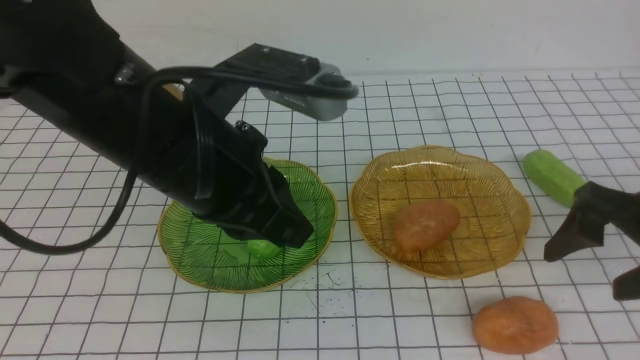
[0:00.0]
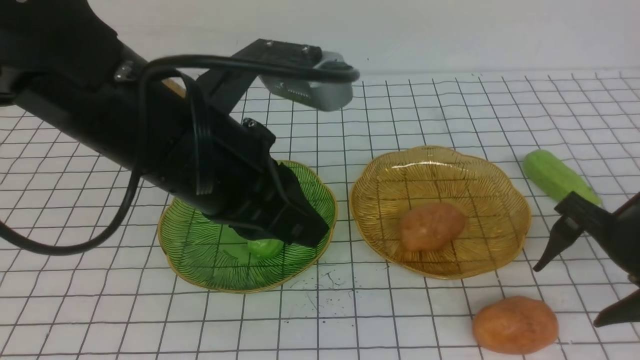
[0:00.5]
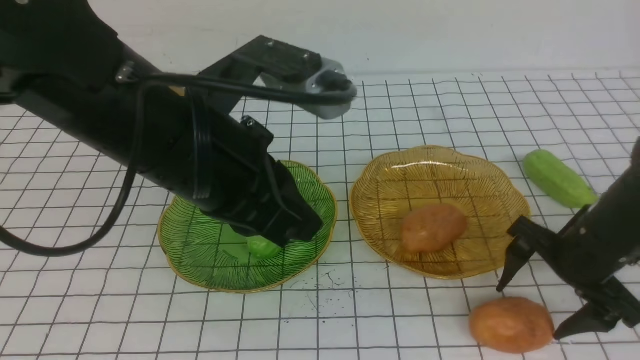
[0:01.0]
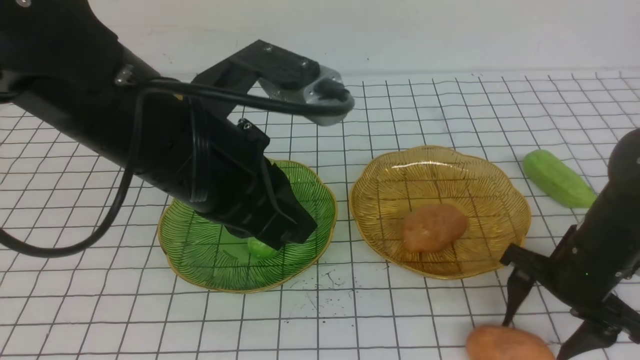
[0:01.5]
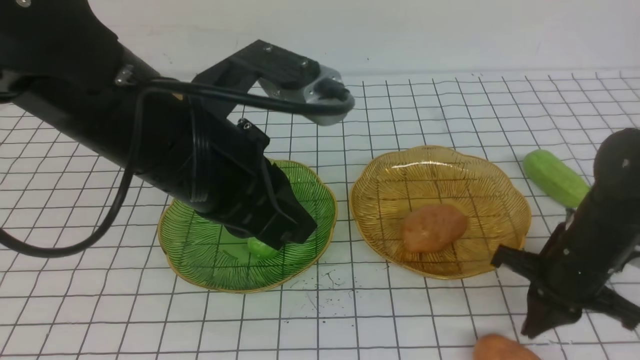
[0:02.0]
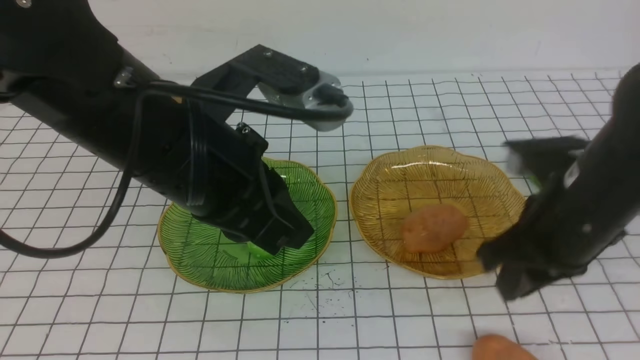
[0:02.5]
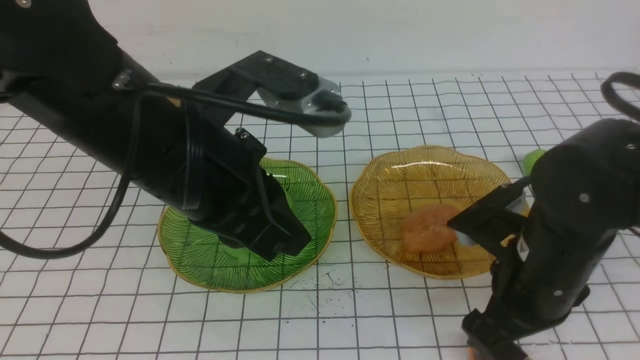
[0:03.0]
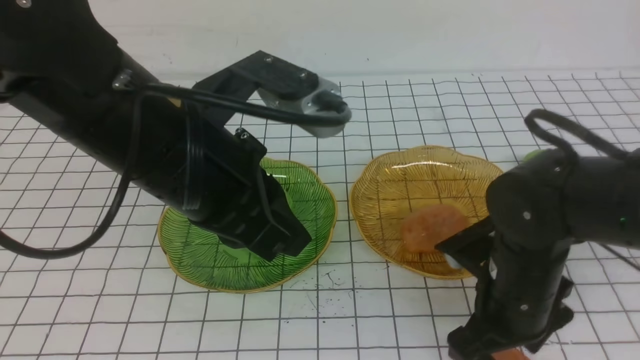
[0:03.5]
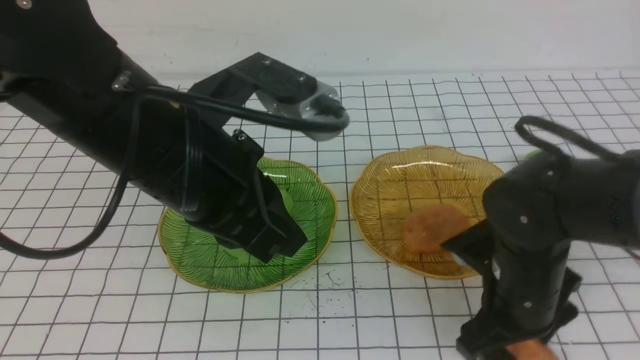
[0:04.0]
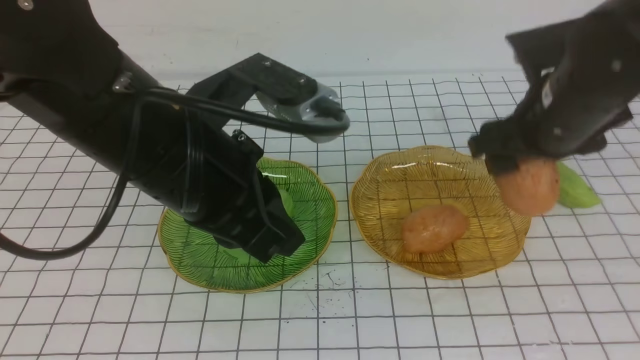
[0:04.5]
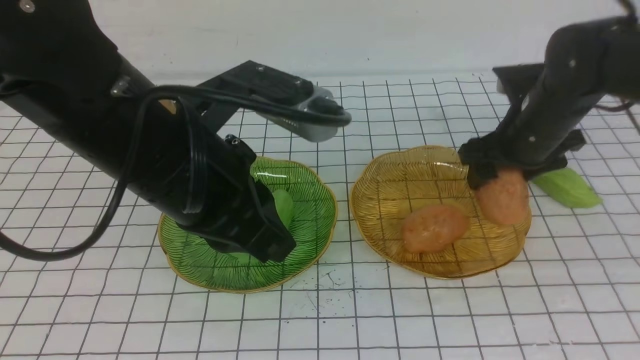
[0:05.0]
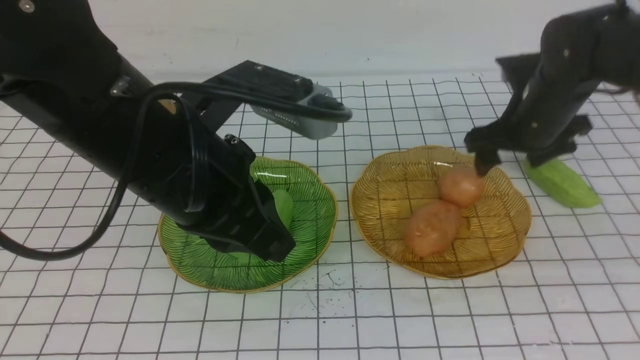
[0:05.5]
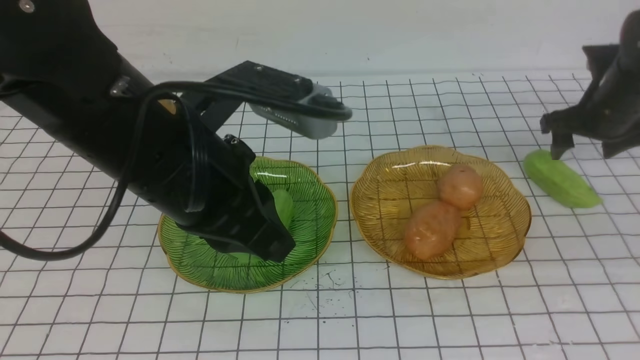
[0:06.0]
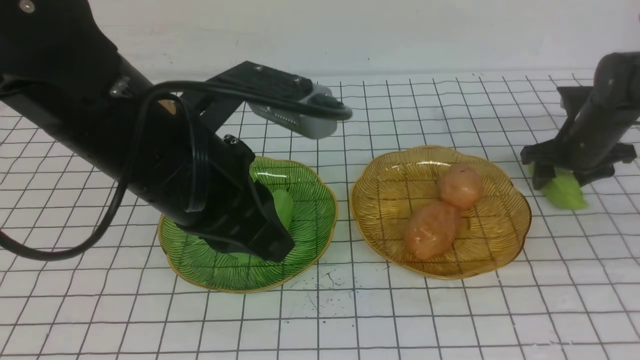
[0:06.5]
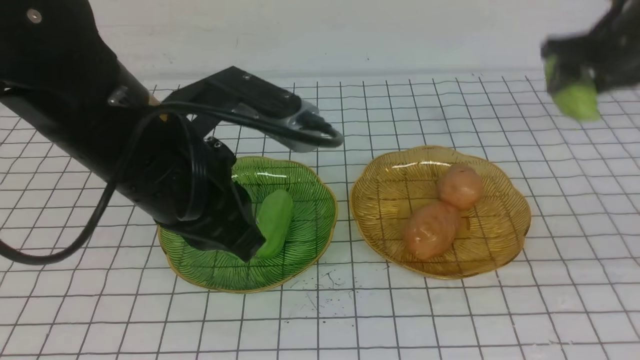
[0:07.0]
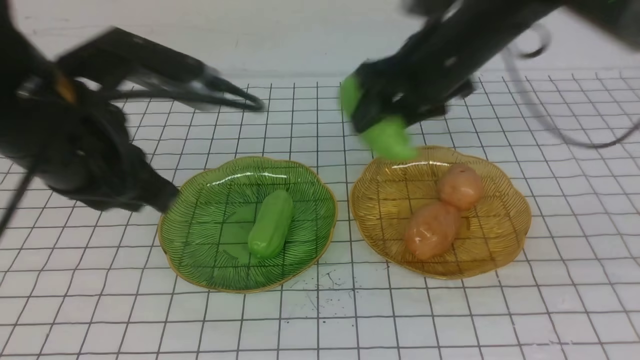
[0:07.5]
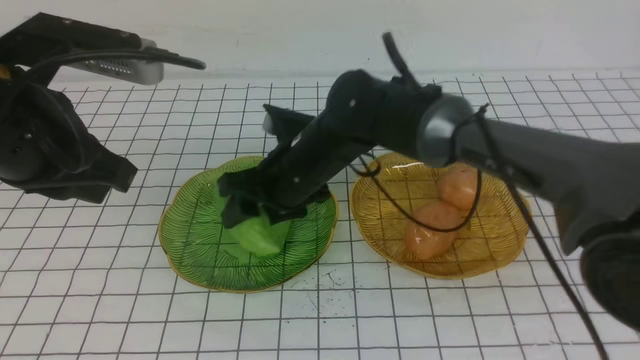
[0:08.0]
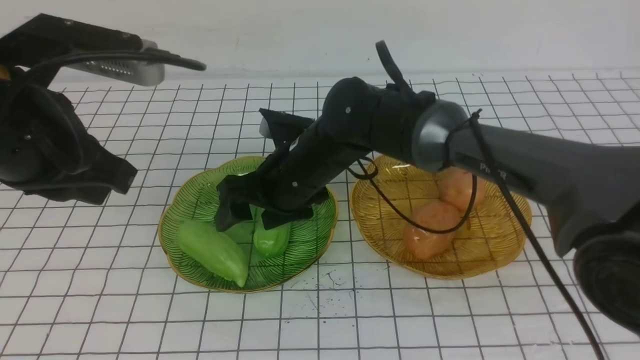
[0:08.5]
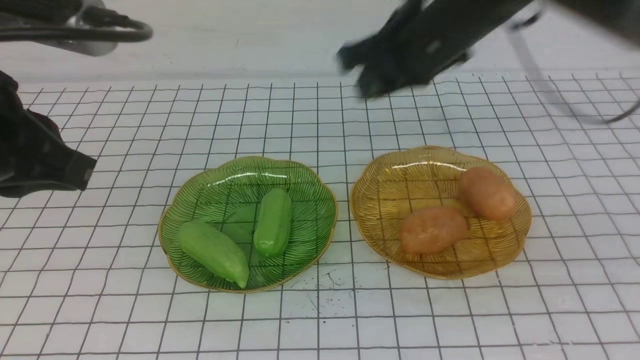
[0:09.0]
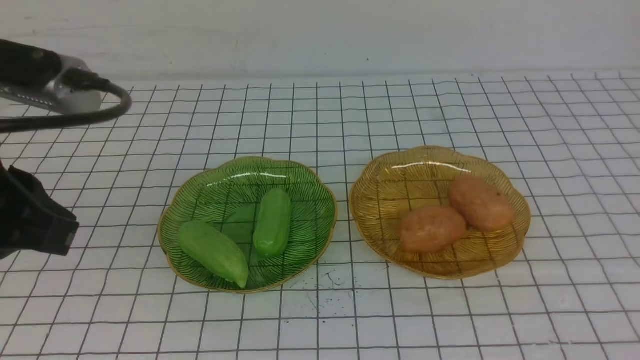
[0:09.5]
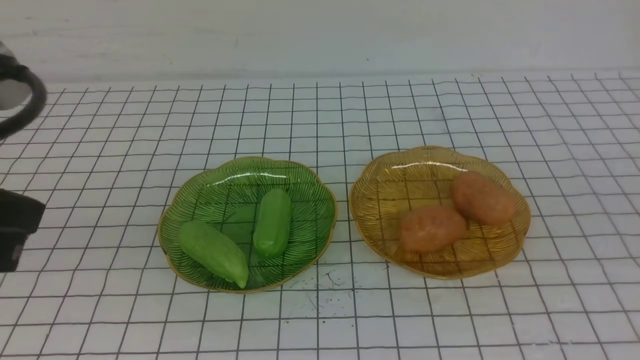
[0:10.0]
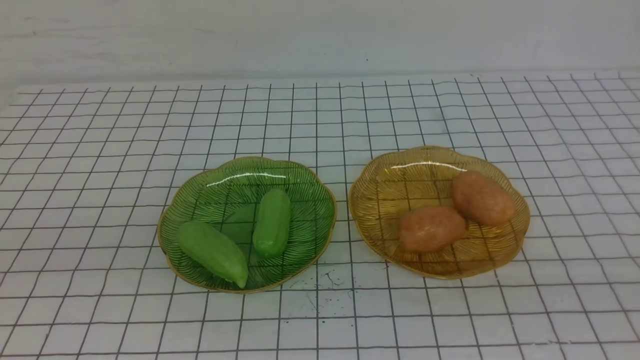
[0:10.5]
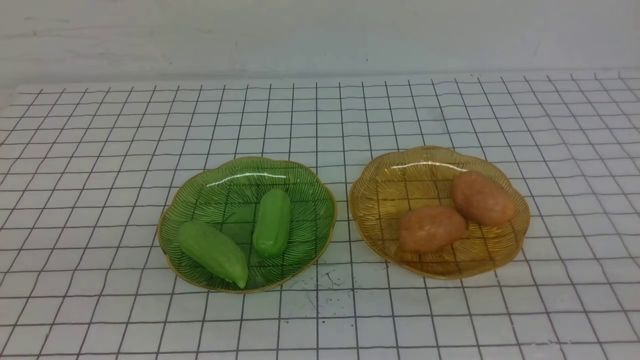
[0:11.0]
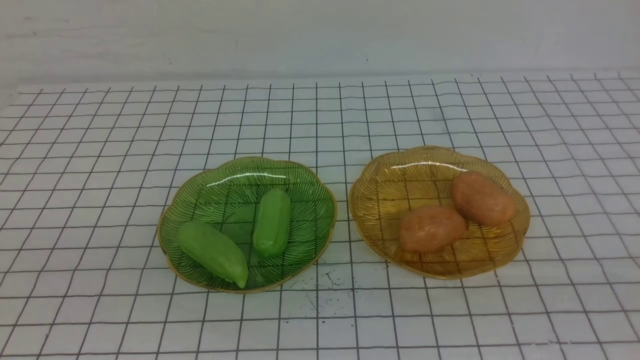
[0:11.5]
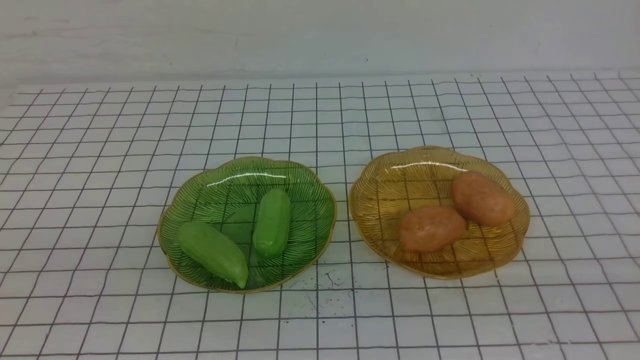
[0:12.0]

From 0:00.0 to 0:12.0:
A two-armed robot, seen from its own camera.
Step, from 0:00.0 to 0:05.0: Grab a potato with your right arm and put it on the right plate.
Step, from 0:05.5 to 0:08.0: use the right arm to grab a carrot and put it into the left plate.
From 0:00.0 to 0:02.0: The right gripper moves downward, roughly 10 cm, and closes up.
From 0:02.0 to 0:04.0: The right gripper moves to the left, roughly 10 cm, and opens.
From 0:04.0 to 0:06.0: The right gripper travels forward and to the right by some 25 cm.
From 0:06.0 to 0:08.0: The left gripper shifts about 10 cm to the left; the right gripper goes some 35 cm to the left.
From 0:08.0 to 0:10.0: The left gripper heads backward, covering some 10 cm. Meanwhile the right gripper goes some 50 cm to the right, backward and upward, and closes.
From 0:10.0 to 0:12.0: The left gripper shifts approximately 5 cm backward.

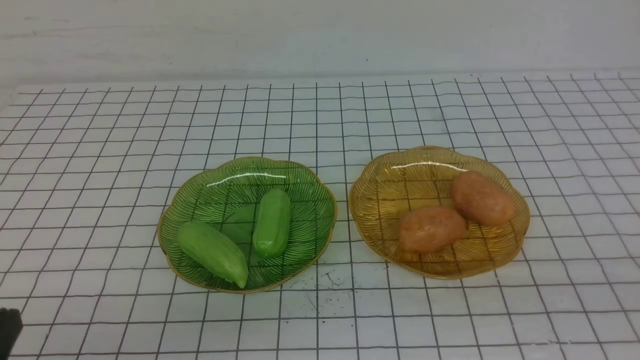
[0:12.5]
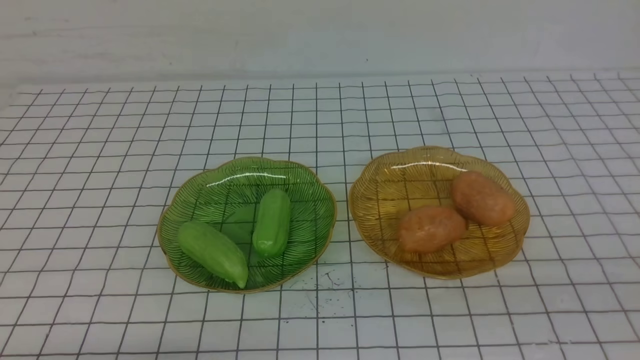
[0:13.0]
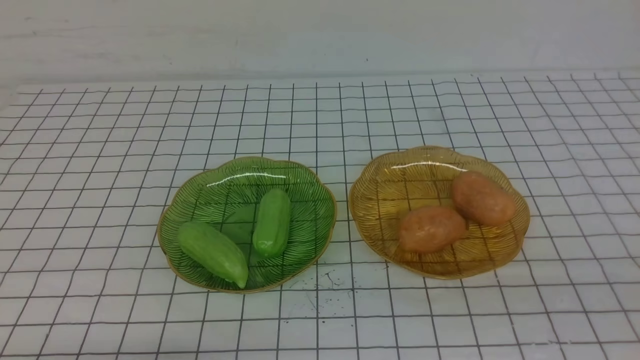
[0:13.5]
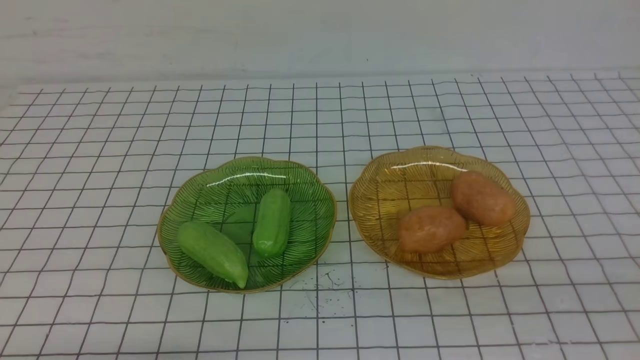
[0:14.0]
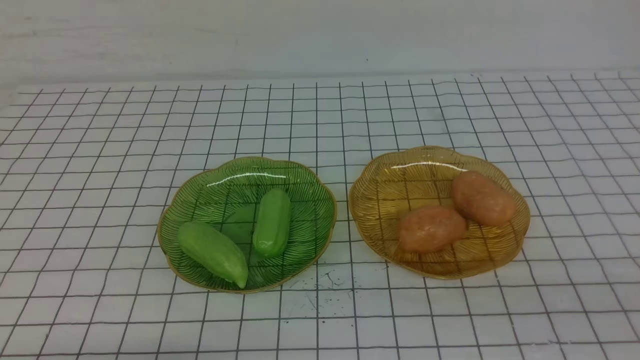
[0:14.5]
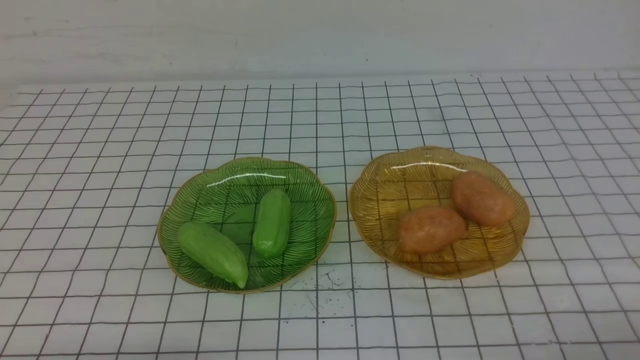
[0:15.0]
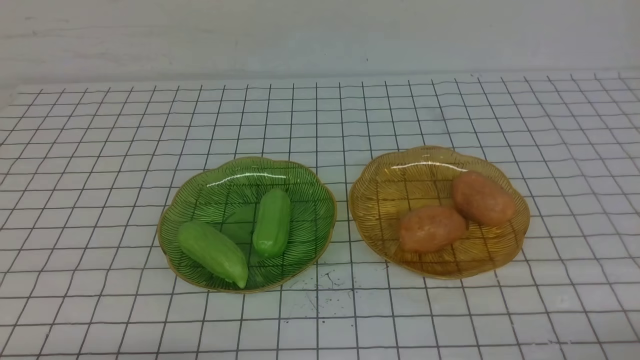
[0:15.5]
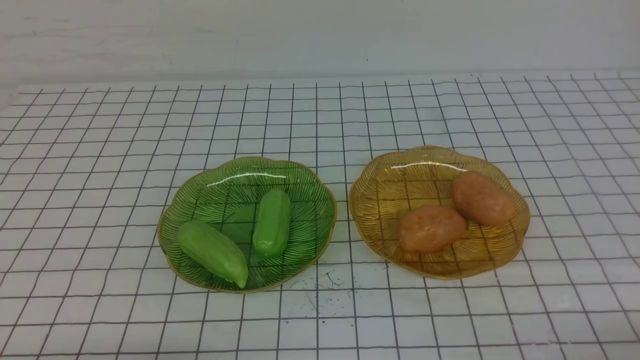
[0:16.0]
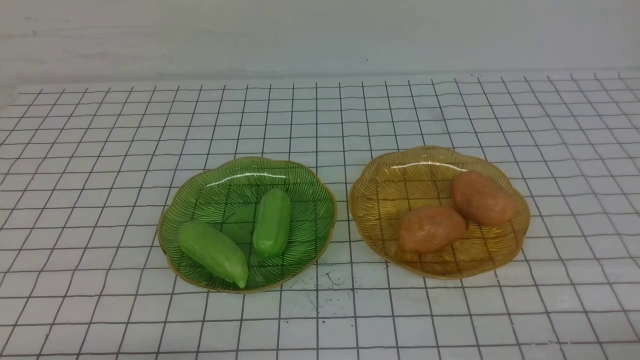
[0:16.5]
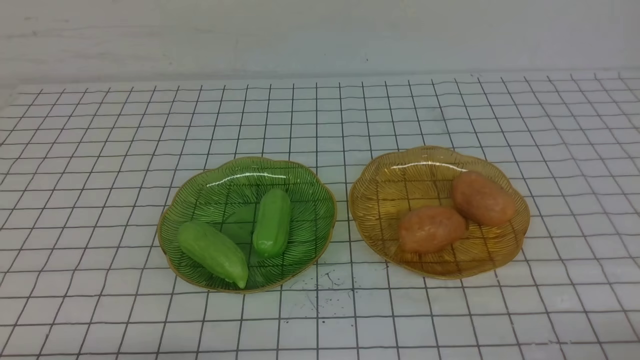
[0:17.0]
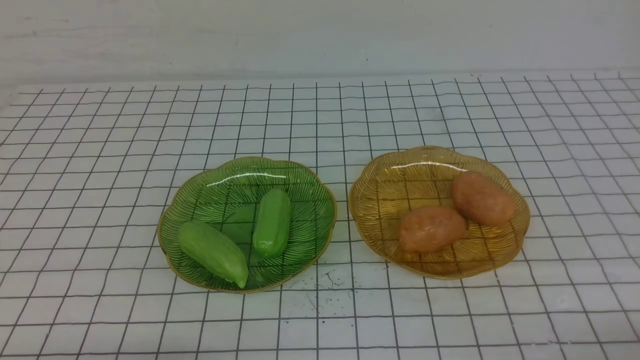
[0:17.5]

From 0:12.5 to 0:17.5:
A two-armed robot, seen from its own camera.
From 0:12.5 to 0:15.0: The right gripper shifts about 15 cm downward. Meanwhile the left gripper shifts approximately 5 cm downward.

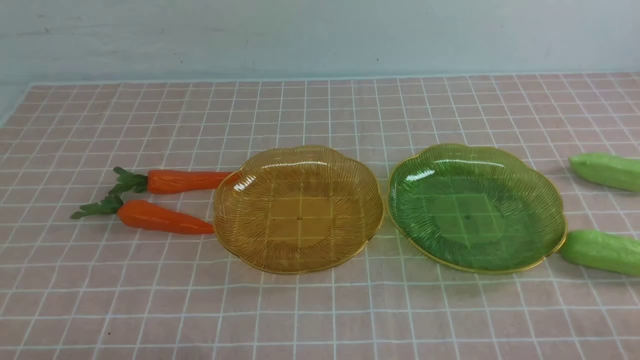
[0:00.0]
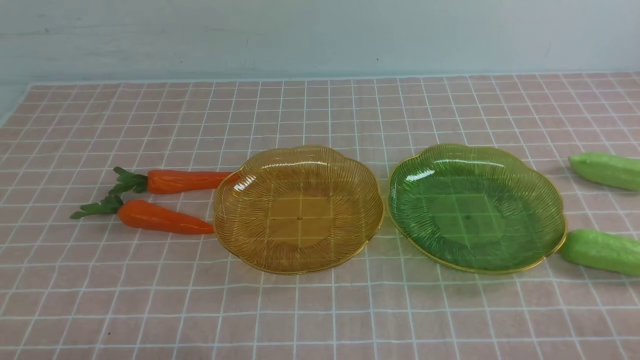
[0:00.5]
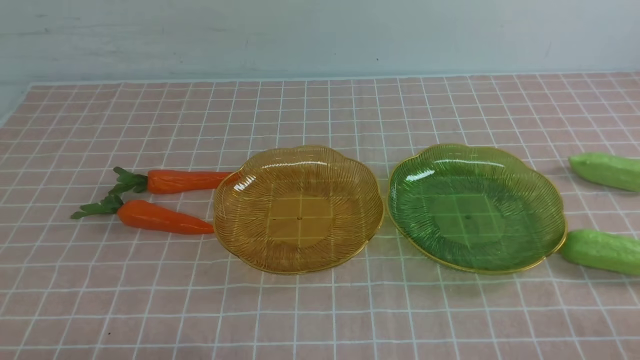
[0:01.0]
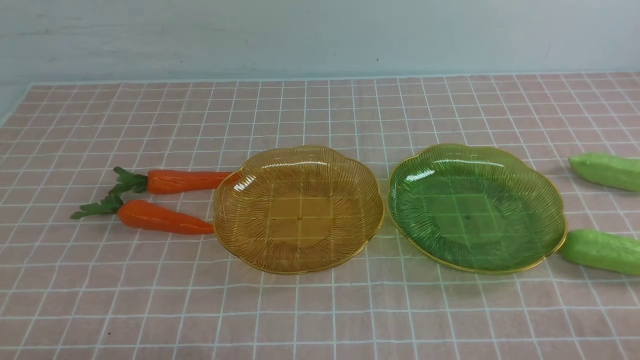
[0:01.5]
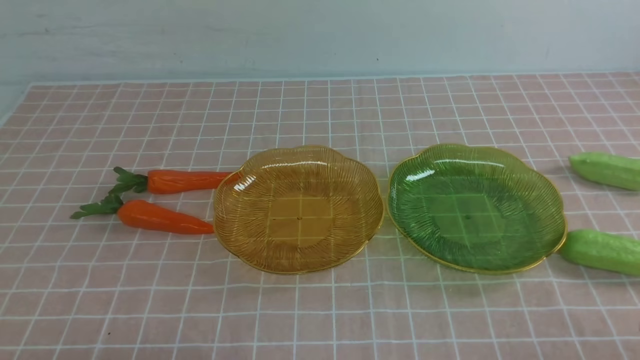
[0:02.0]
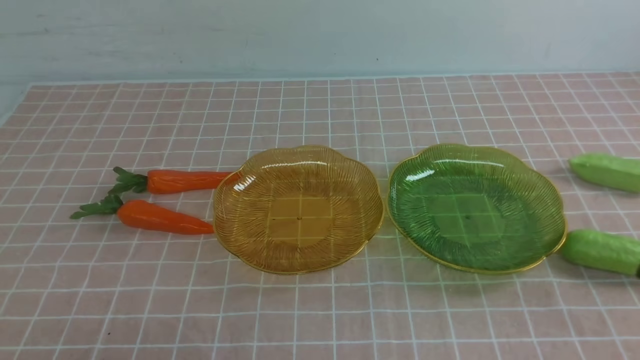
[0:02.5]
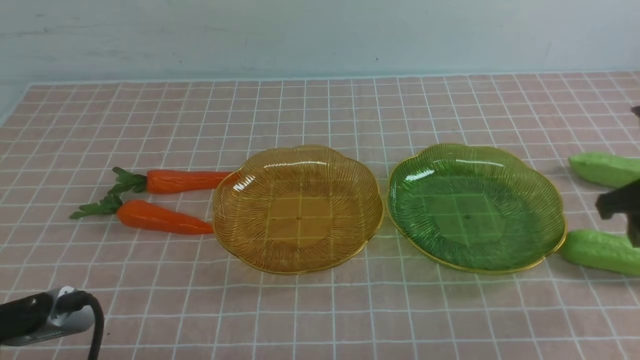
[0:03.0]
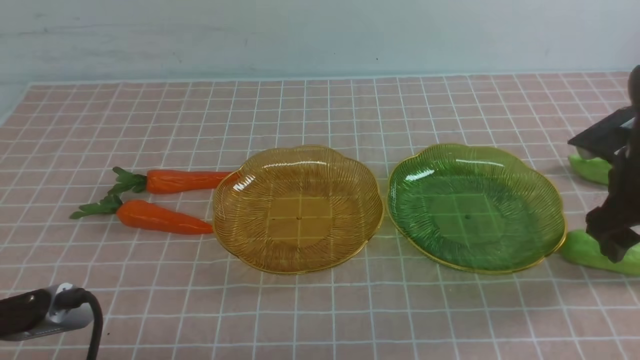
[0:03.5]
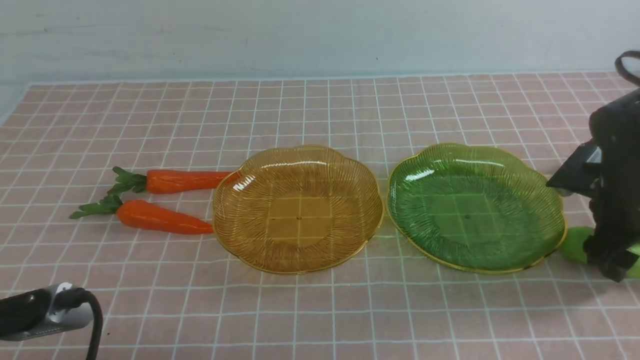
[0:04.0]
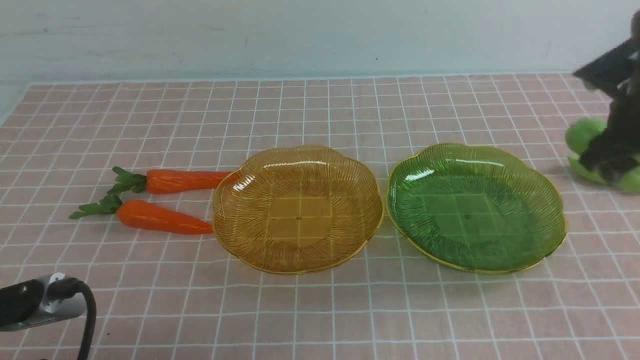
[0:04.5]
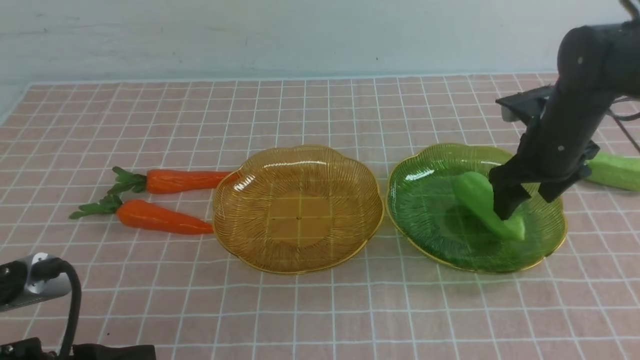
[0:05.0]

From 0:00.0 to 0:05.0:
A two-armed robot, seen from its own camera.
Step, from 0:00.0 to 0:04.5: use the right arm to grab a chayote and put it into the right plate.
From 0:02.5 to 0:05.0: The right gripper shifts approximately 30 cm forward and downward, and opens; the left gripper opens its fingers.
